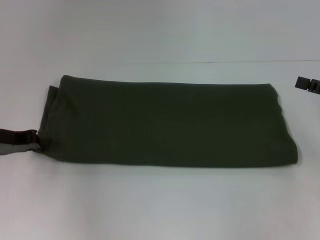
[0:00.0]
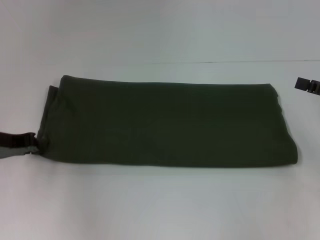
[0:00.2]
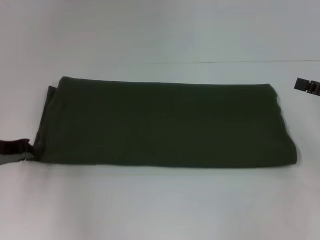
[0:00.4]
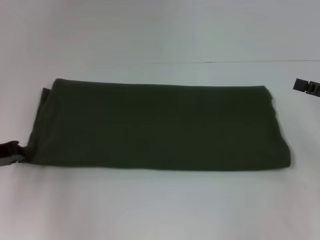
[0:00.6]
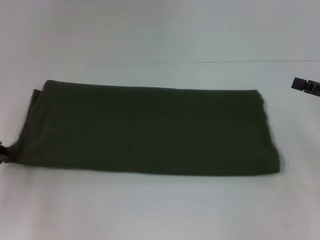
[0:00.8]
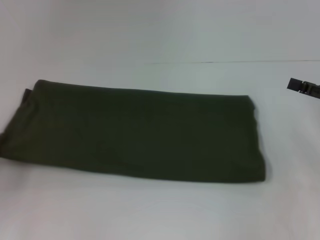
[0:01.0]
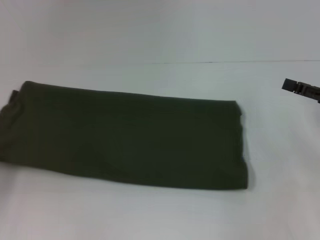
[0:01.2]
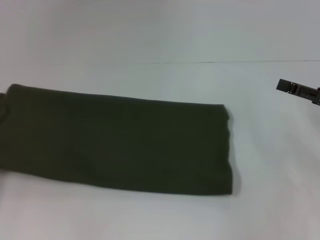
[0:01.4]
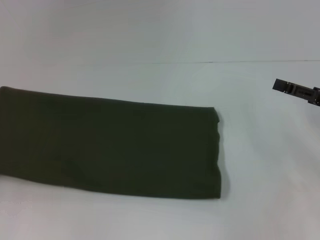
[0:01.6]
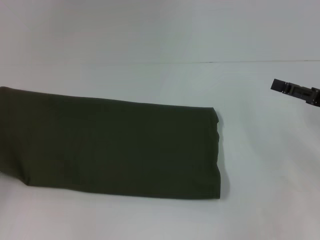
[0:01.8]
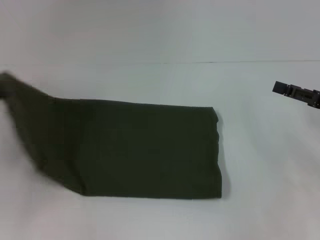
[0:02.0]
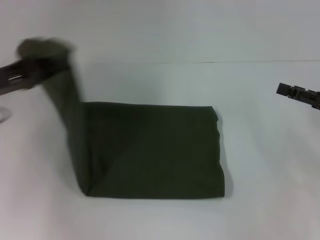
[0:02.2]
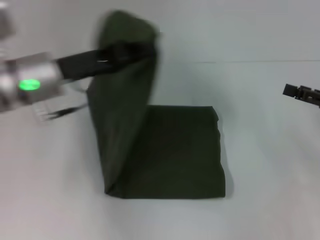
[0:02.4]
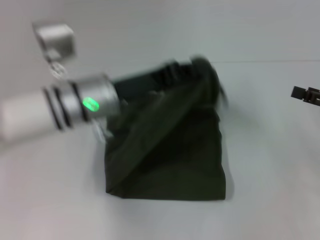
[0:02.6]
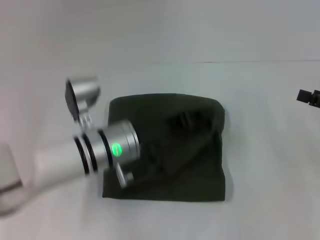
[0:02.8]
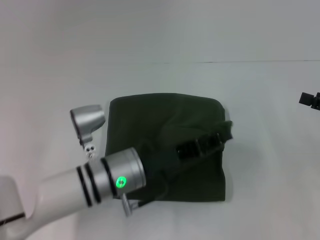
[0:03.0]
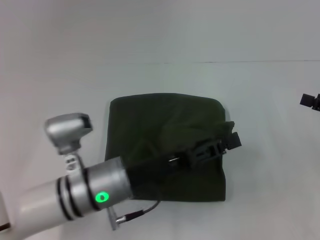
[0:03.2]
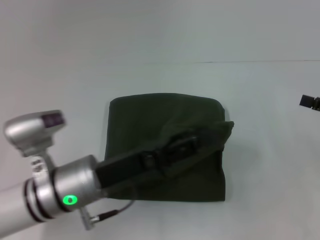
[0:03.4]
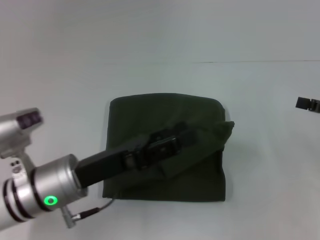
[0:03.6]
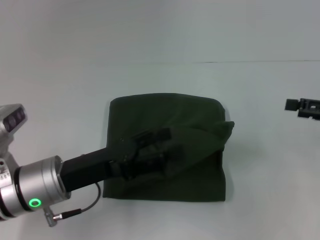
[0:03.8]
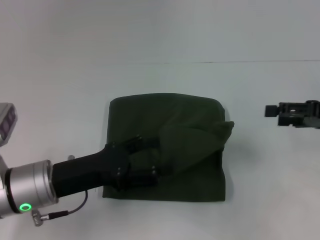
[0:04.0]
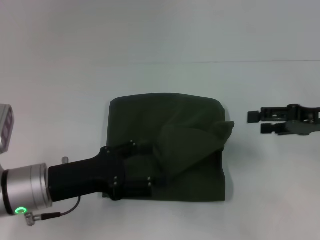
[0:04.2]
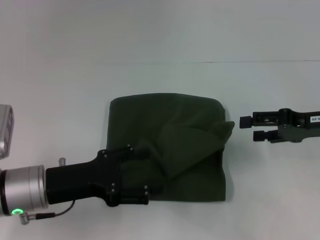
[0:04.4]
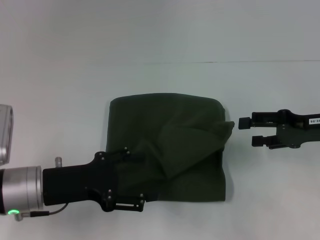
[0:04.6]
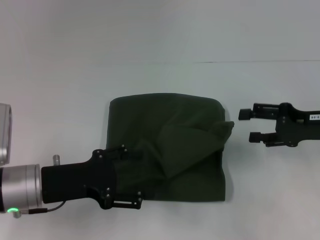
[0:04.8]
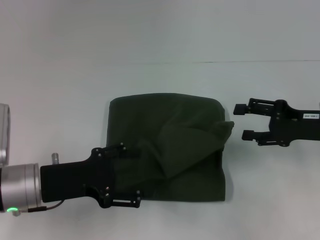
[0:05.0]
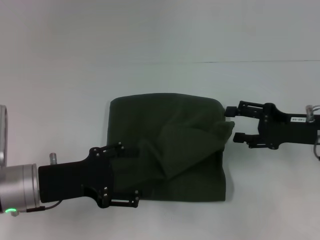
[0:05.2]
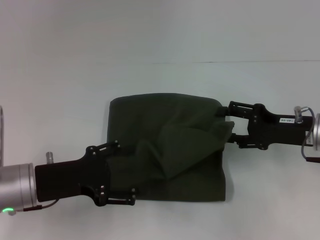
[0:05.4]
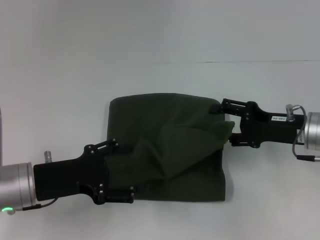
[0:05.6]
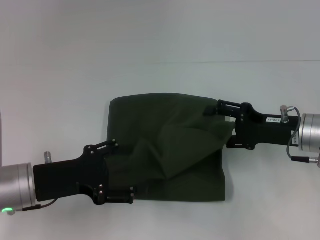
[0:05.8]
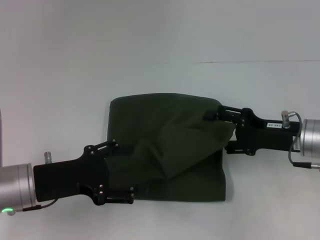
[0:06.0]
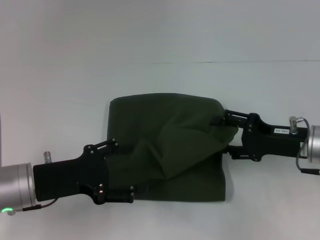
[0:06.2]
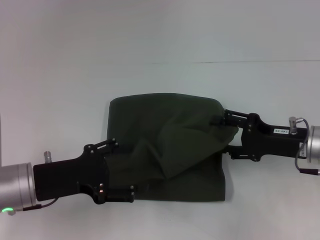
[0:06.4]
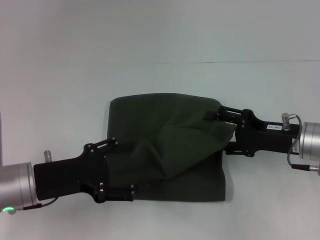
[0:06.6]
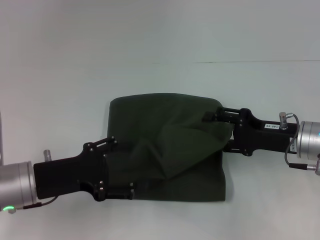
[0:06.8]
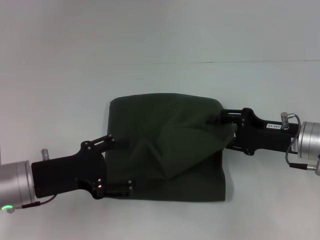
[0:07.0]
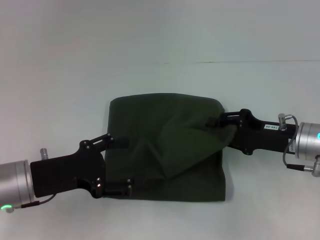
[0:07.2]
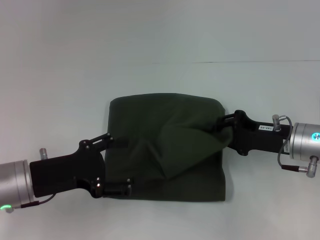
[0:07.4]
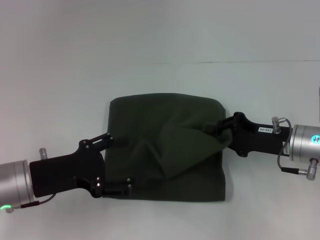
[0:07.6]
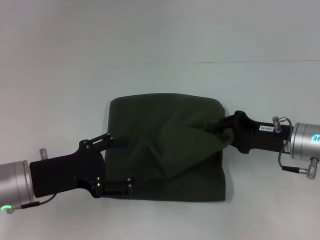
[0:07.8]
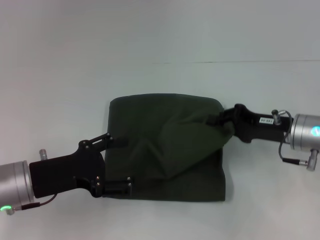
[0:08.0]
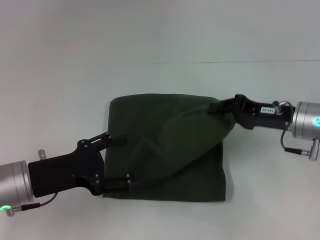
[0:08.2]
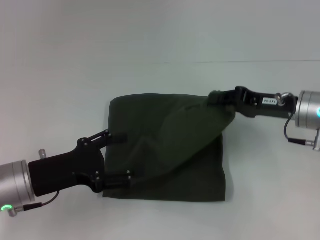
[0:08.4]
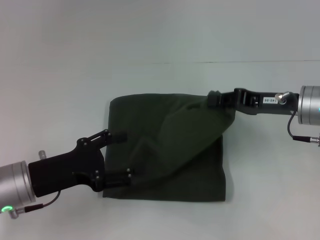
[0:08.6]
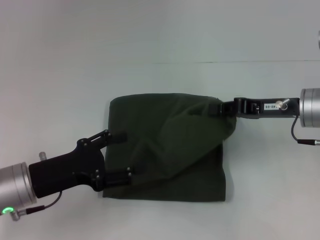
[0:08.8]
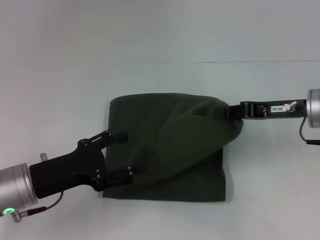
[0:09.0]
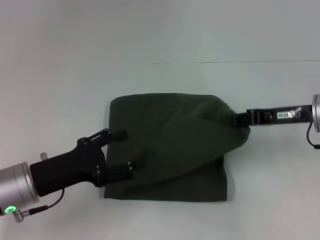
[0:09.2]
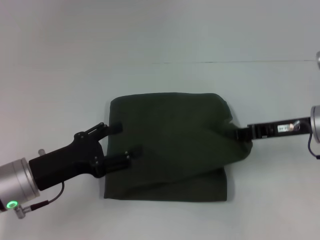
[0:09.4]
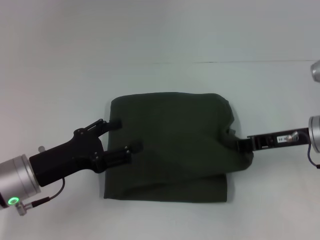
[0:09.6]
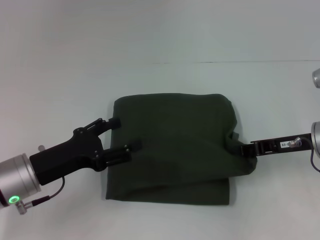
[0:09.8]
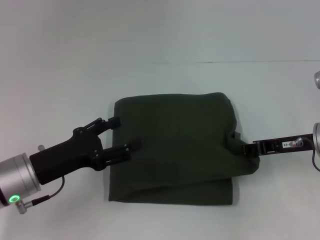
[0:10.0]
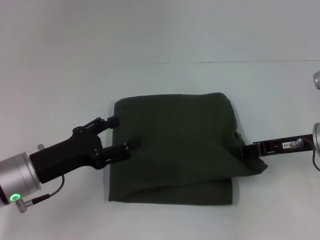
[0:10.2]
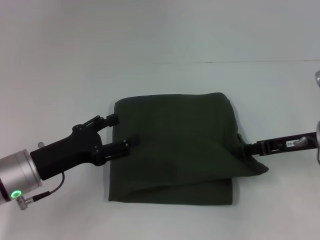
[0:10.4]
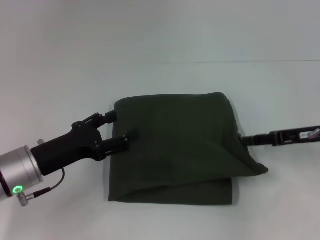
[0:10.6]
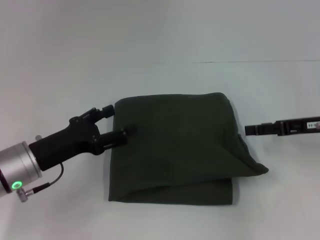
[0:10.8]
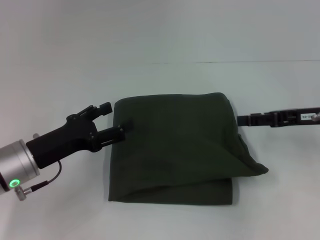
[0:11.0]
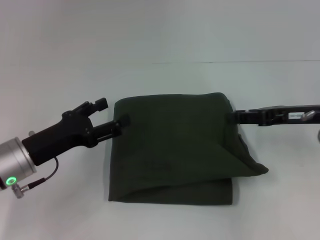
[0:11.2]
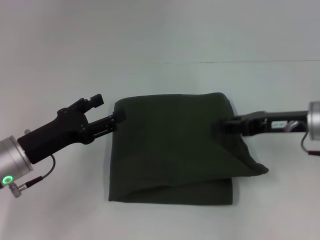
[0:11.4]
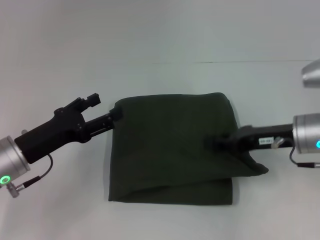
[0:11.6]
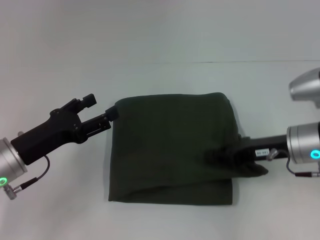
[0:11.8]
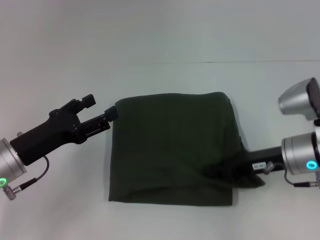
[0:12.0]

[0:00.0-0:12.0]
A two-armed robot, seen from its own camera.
Step, 0:00.0 to 0:03.2: Fold the clothes with your left hand.
0:00.0 to 0:01.6: The left gripper heads to the left and backward, covering some 15 cm.
0:01.6 to 0:03.0: The left gripper is displaced to the right by about 35 cm.
0:03.0 to 0:04.4: The right gripper shifts roughly 5 cm to the left; the left gripper shifts about 10 cm to the left, and opens up.
0:04.4 to 0:06.0: The right gripper is displaced to the left by roughly 5 cm.
0:06.0 to 0:07.6: The right gripper closes its fingers.
0:07.6 to 0:09.0: The right gripper moves upward, approximately 5 cm.
0:09.0 to 0:10.4: The grippers move only a little.
0:10.4 to 0:12.0: The right gripper goes roughly 5 cm to the left, and opens, then closes once more.

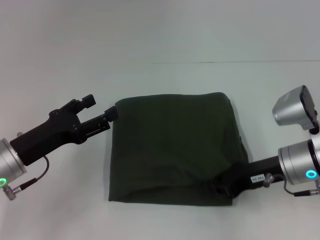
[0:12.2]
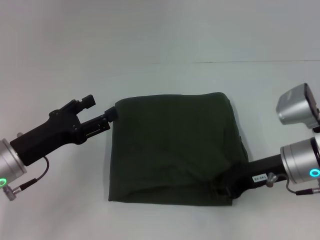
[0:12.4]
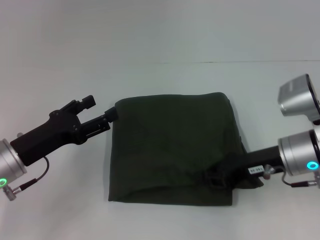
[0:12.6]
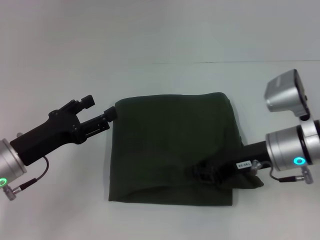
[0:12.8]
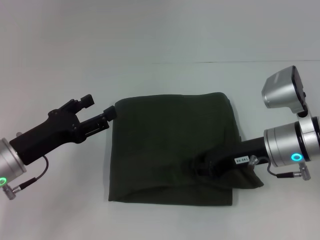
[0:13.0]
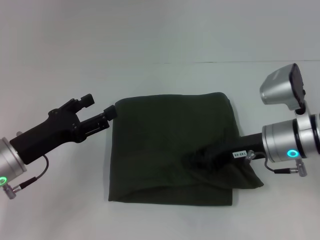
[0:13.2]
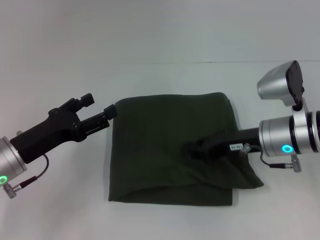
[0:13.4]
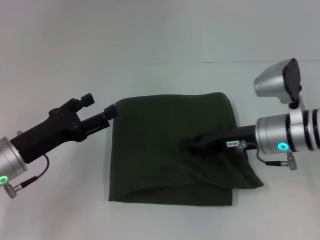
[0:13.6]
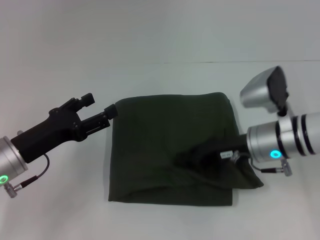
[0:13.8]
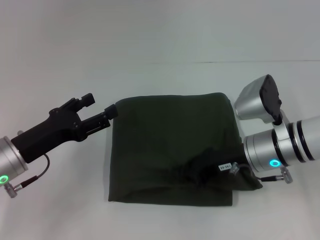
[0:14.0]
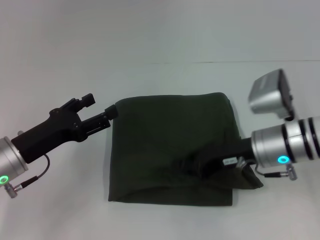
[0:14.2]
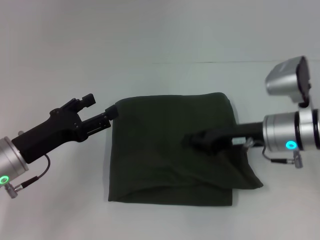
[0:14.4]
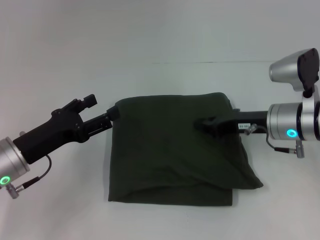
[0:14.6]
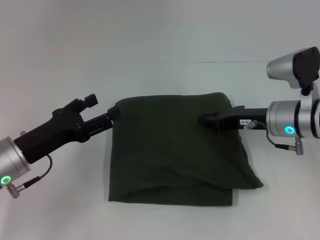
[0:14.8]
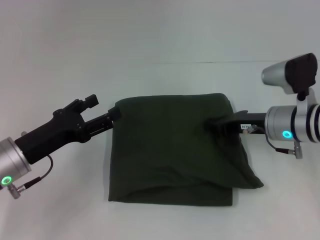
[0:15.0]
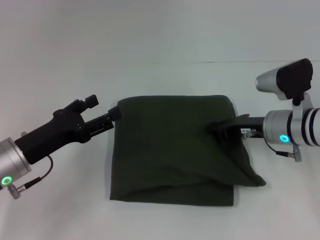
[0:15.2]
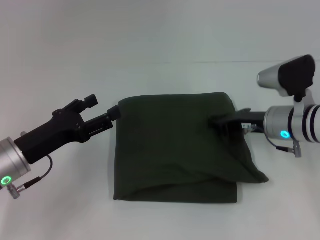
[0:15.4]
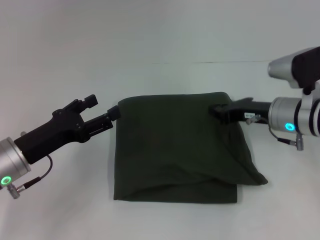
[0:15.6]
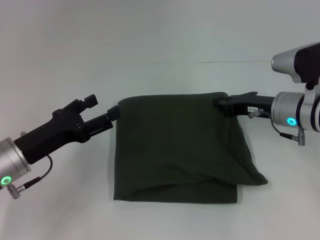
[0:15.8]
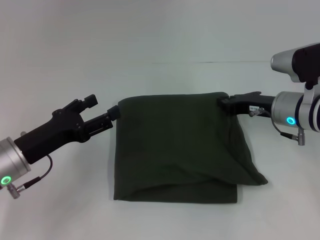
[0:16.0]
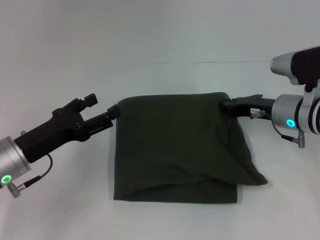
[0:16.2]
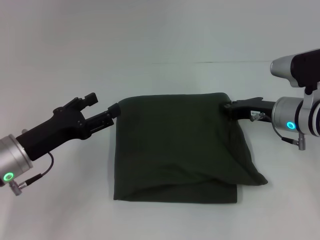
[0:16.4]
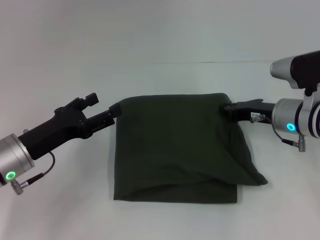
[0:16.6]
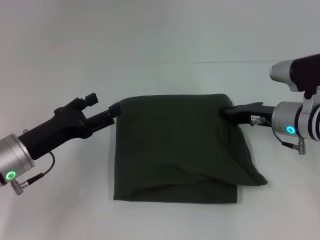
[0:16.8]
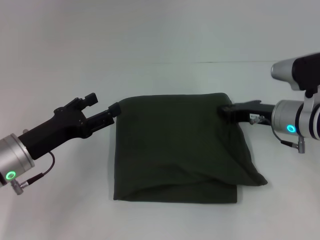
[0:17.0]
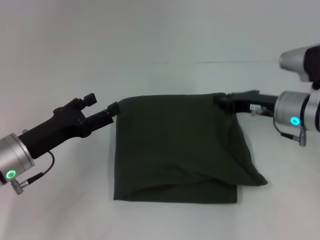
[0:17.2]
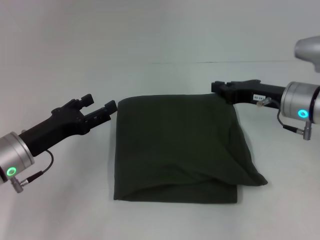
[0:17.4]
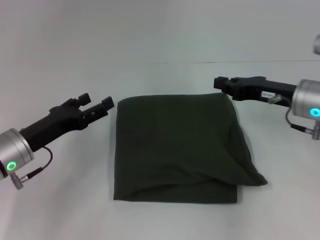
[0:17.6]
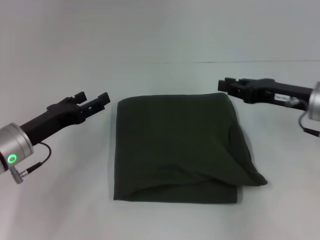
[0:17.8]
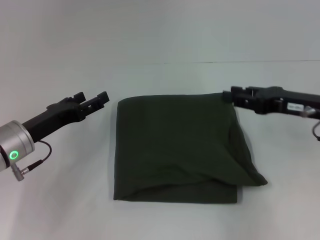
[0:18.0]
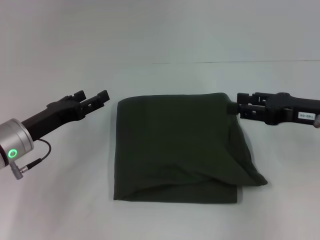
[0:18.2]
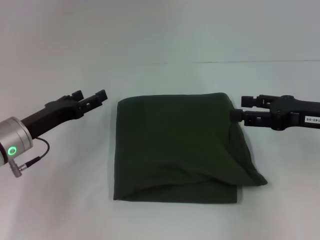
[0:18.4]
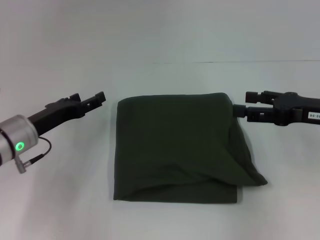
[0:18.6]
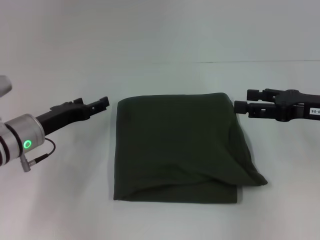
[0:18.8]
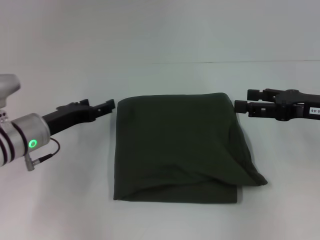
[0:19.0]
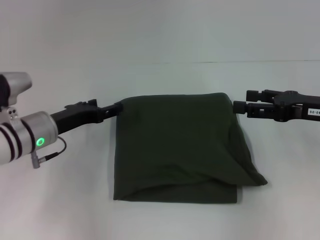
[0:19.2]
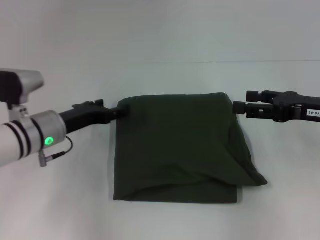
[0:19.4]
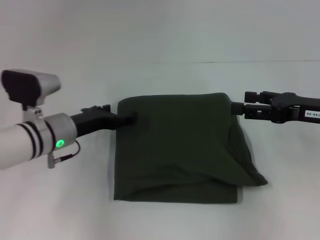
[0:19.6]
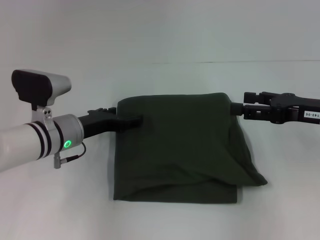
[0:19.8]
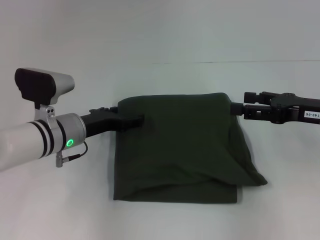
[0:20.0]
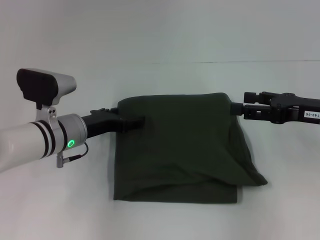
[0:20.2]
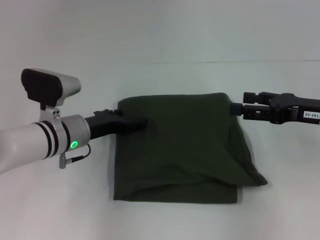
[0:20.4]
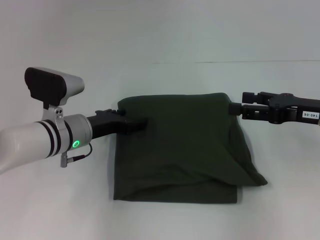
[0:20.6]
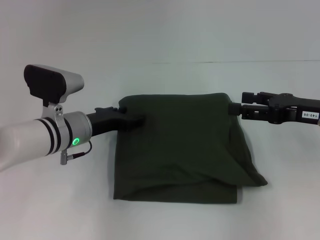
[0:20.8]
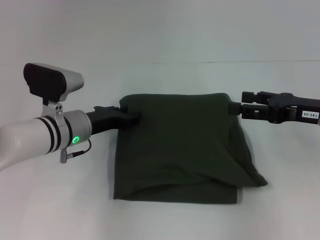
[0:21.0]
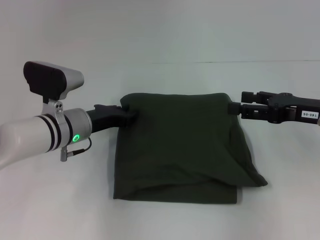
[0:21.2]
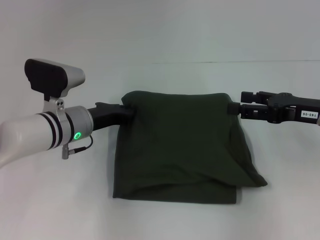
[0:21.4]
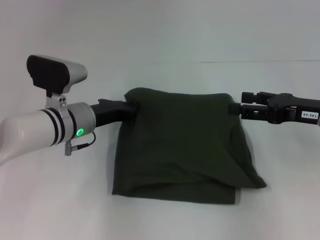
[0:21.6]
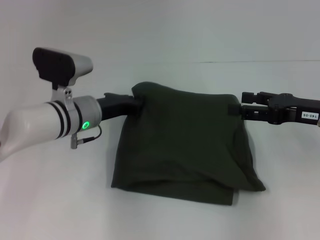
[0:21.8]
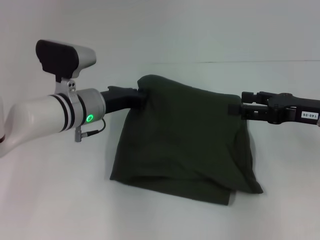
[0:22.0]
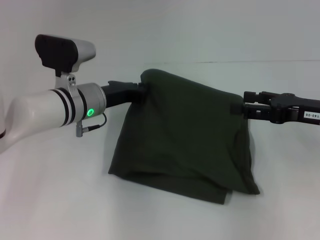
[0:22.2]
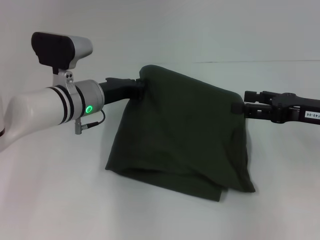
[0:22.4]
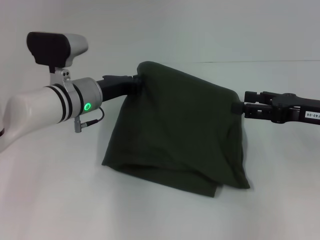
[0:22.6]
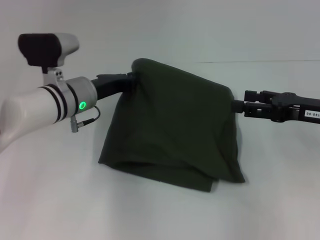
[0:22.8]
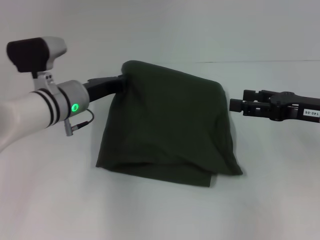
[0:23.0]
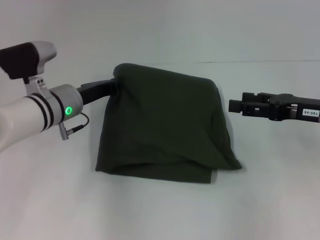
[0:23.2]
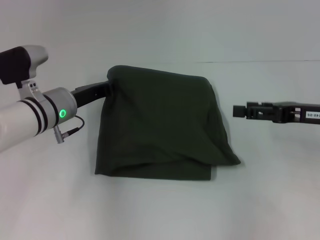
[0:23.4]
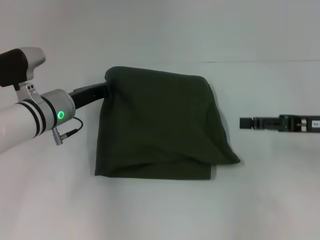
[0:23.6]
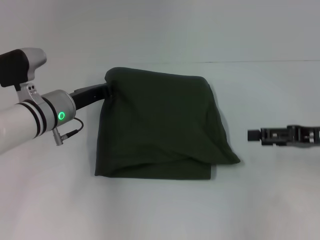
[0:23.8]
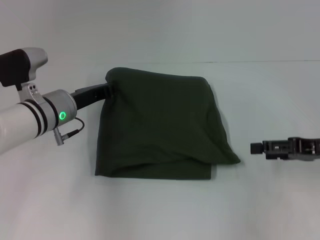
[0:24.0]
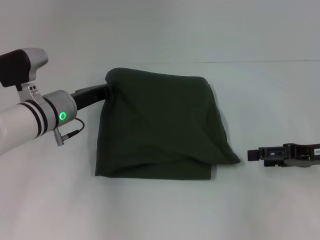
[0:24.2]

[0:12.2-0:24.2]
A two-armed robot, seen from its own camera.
0:12.2 to 0:13.8: The grippers move only a little.
0:15.2 to 0:16.6: There are only small adjustments of the grippers.
0:16.6 to 0:18.2: The right gripper goes roughly 10 cm to the right, upward and backward.
0:18.2 to 0:19.8: The left gripper heads to the right, covering roughly 5 cm, while the right gripper opens its fingers.
0:19.8 to 0:21.2: The left gripper closes.
0:21.2 to 0:22.6: The left gripper closes.
